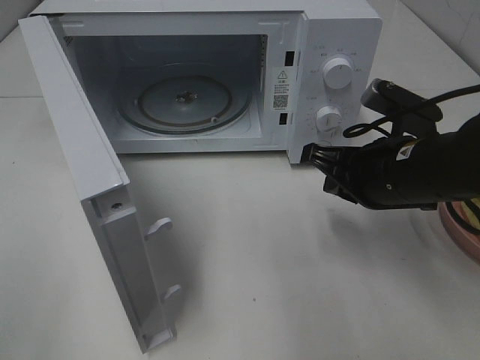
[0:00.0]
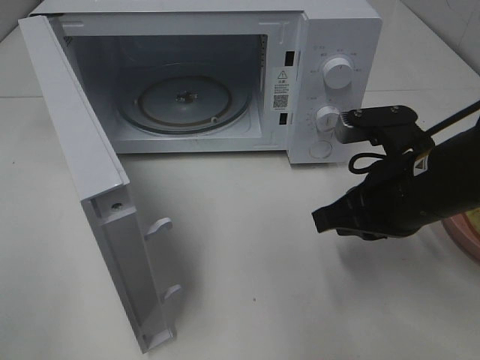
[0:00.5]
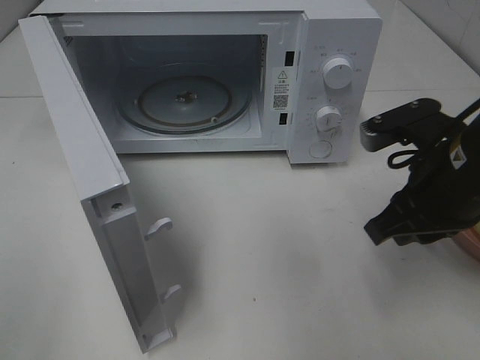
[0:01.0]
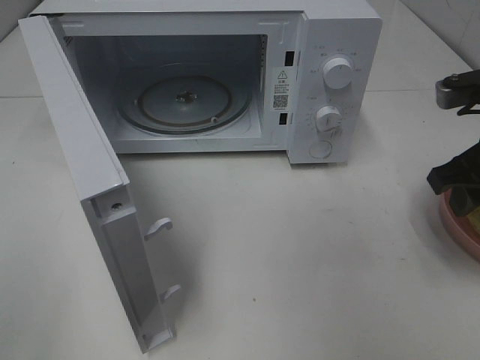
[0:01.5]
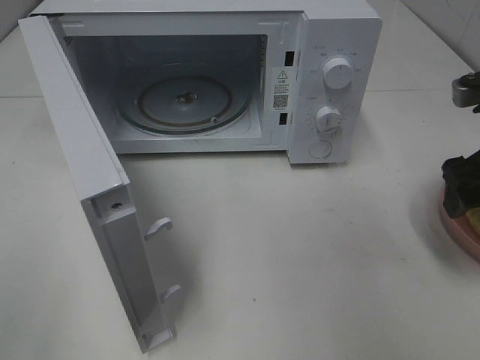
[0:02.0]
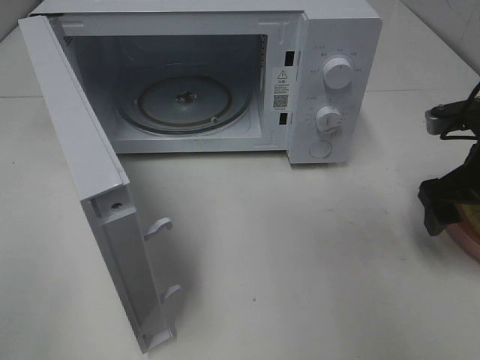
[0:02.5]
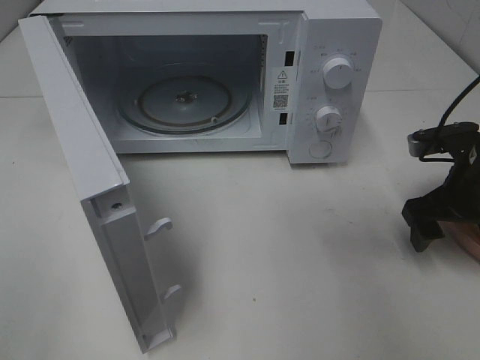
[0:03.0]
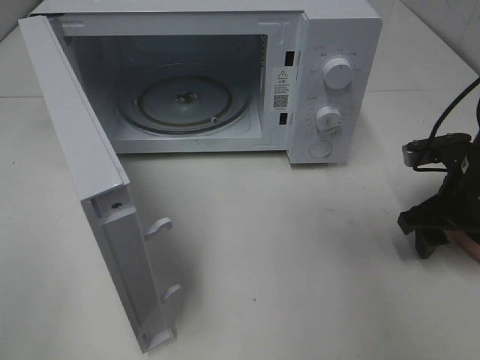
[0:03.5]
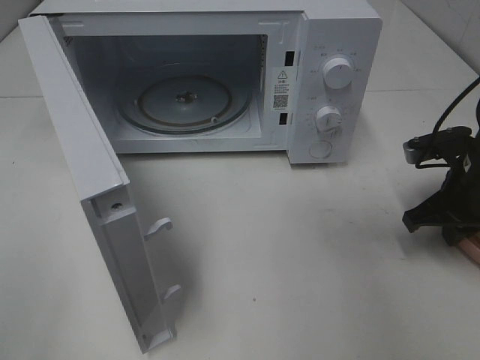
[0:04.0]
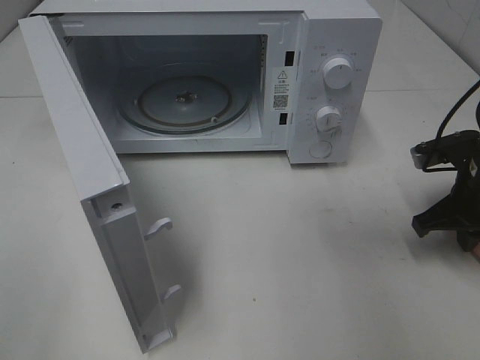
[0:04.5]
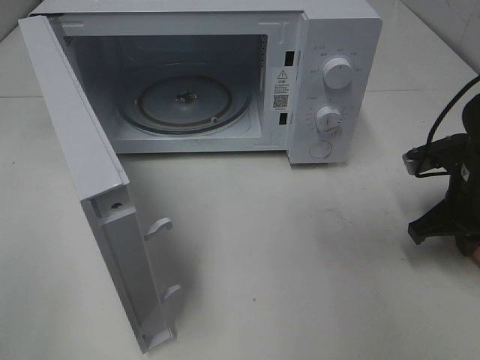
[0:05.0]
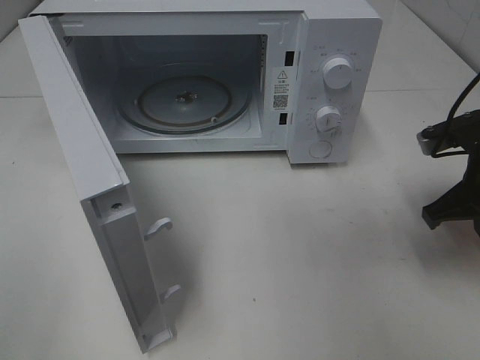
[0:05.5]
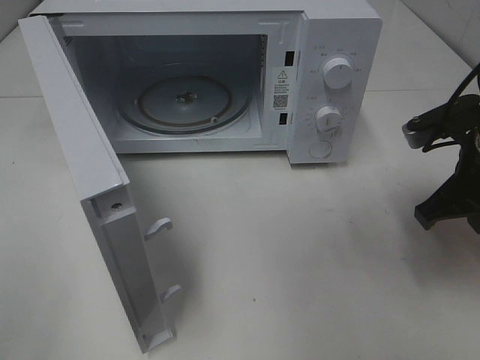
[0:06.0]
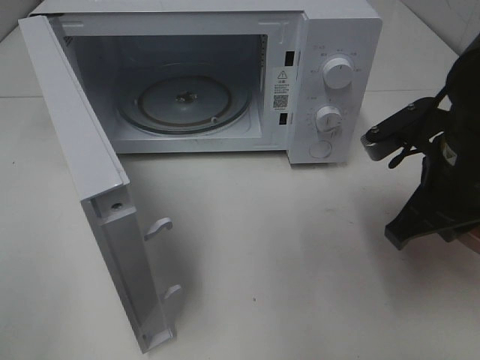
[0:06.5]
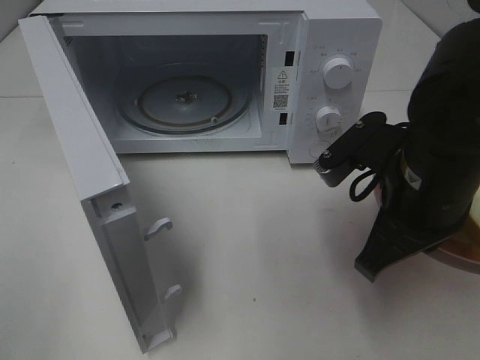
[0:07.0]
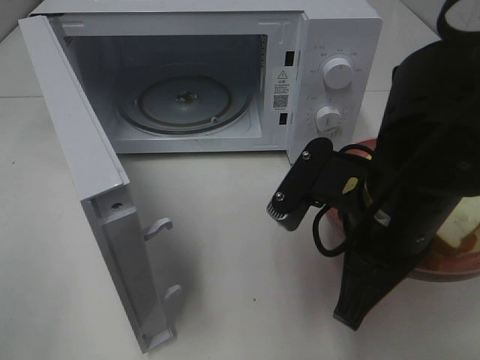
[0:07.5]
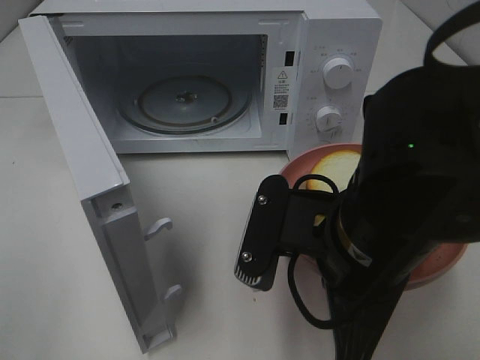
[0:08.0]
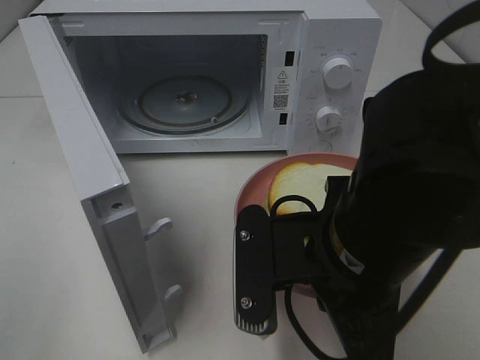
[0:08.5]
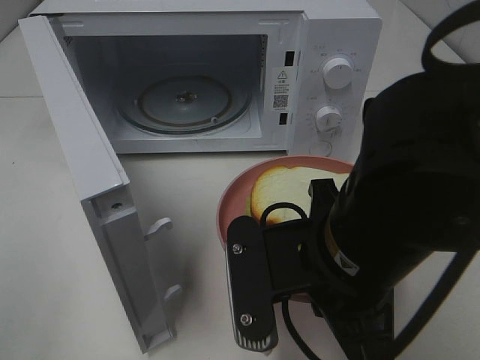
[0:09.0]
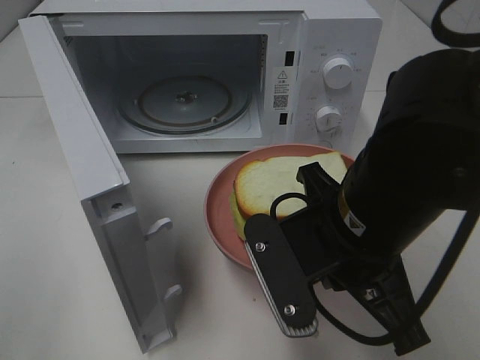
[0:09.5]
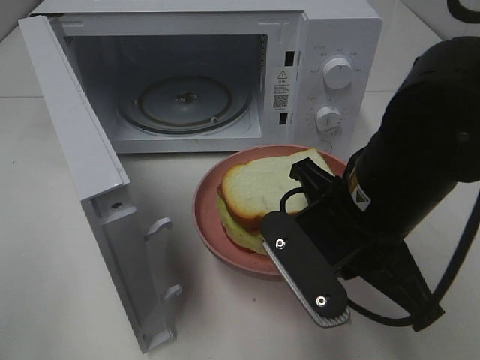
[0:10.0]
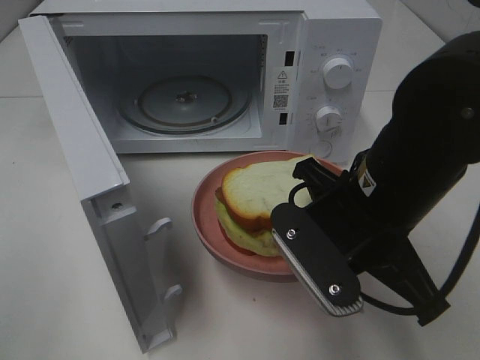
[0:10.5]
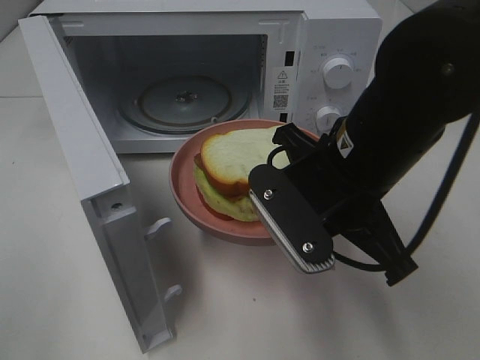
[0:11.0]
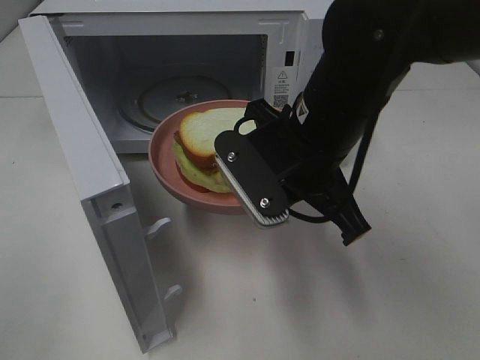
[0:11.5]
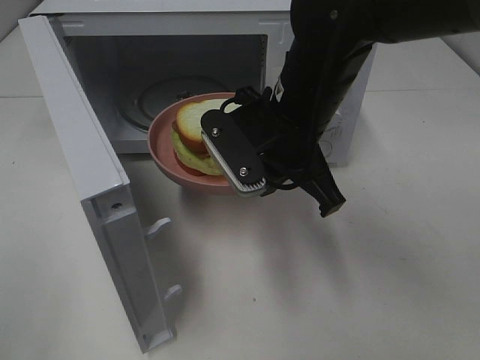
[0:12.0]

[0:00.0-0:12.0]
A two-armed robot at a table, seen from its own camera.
Task of the whole recording: Heat Sandwich.
Step, 0.0 to 4.0 s: Right hand: grab the plate with the sandwich.
0.0 to 2.0 s: The right gripper travels to the right and upward by some 10 cm, and opens.
2.0 to 4.0 s: The right gripper travels downward by about 10 cm, and closes its fingers.
4.0 to 6.0 s: The right gripper goes about 5 cm upward.
6.0 to 8.0 s: The right gripper heads to the left and backward, covering some 20 cm.
10.0 to 12.0 s: The right gripper shifts roughly 10 cm forward.

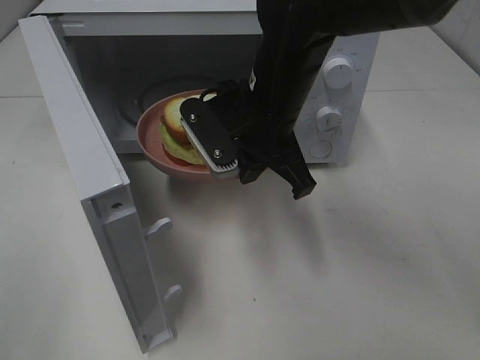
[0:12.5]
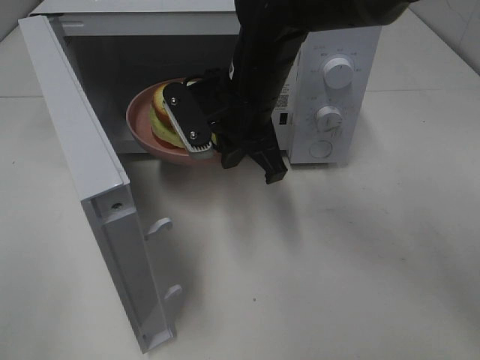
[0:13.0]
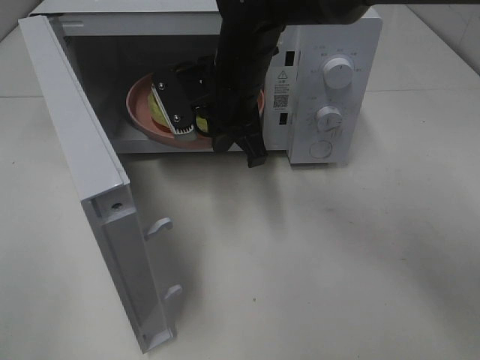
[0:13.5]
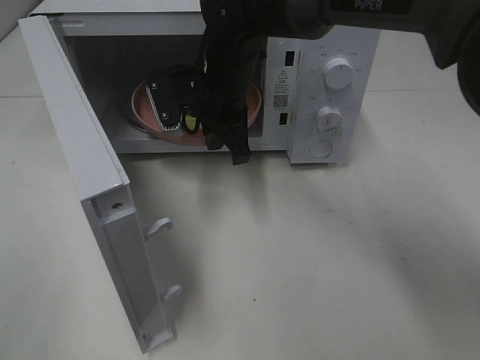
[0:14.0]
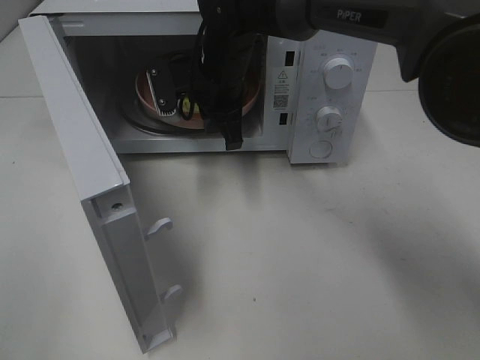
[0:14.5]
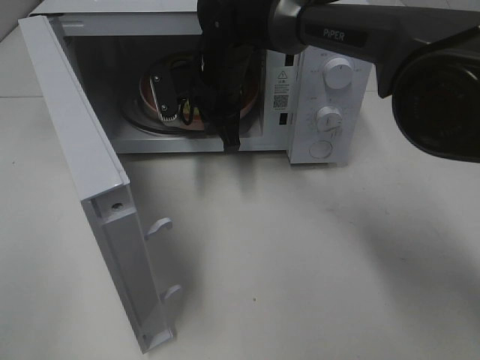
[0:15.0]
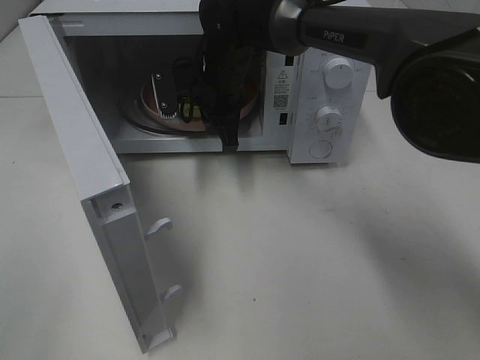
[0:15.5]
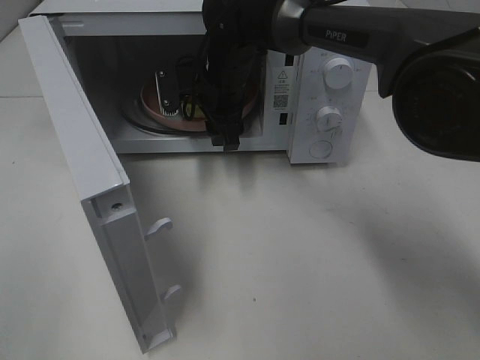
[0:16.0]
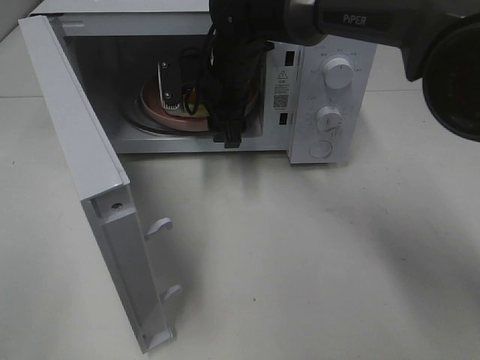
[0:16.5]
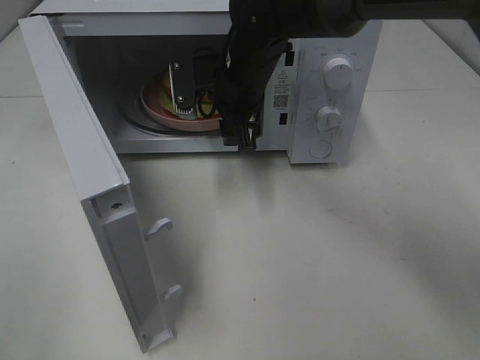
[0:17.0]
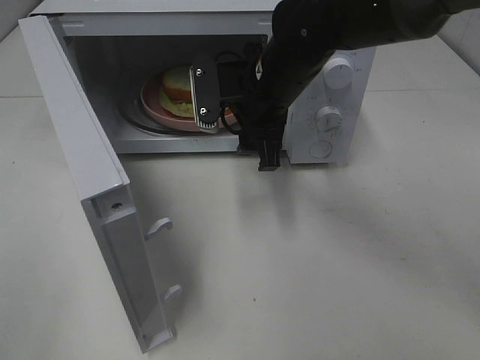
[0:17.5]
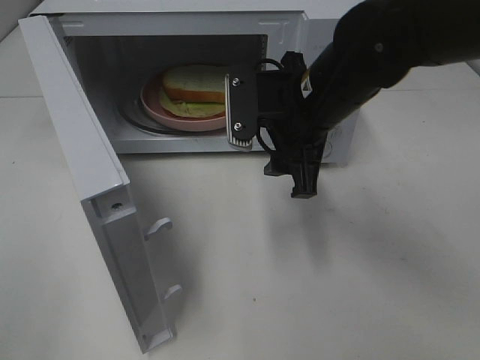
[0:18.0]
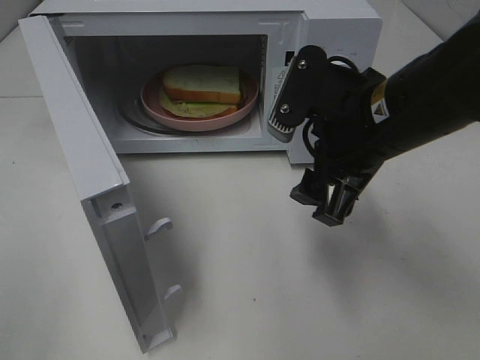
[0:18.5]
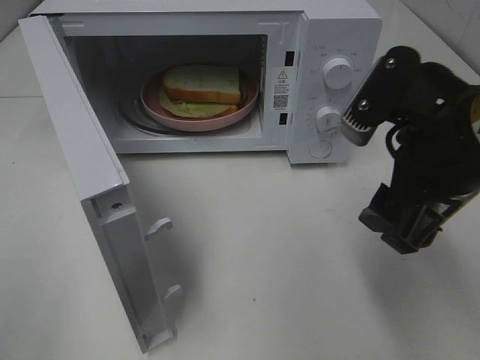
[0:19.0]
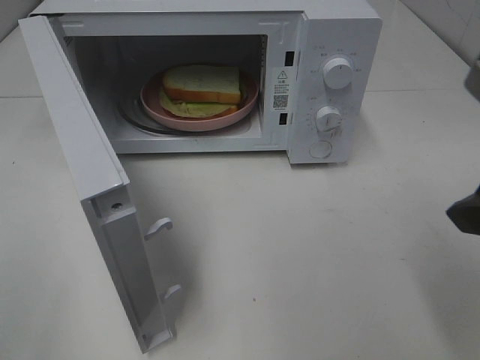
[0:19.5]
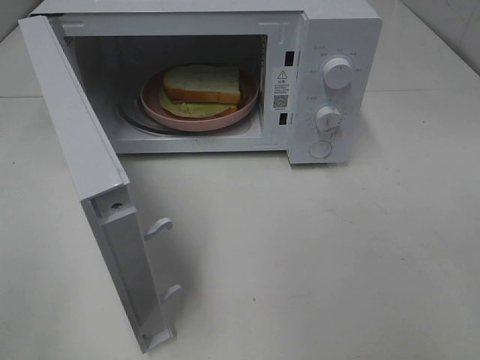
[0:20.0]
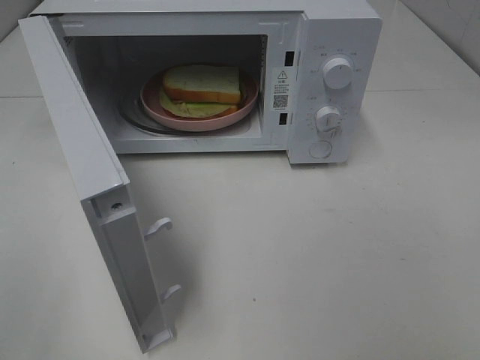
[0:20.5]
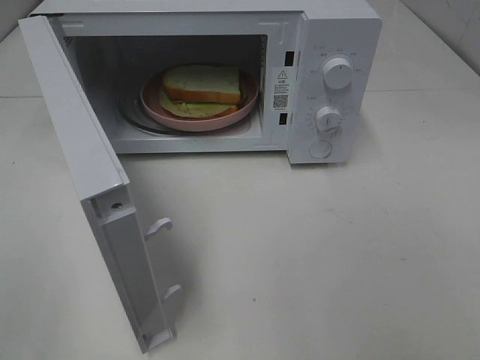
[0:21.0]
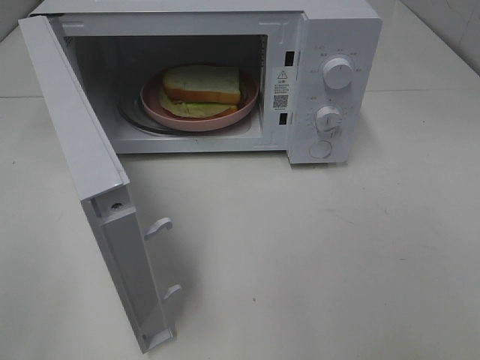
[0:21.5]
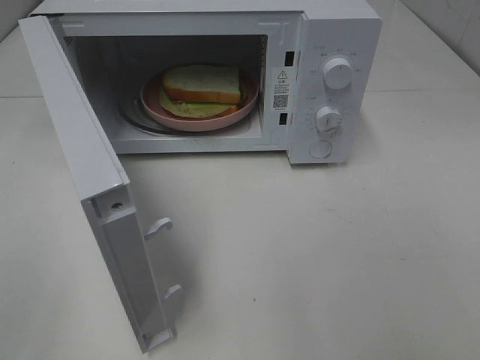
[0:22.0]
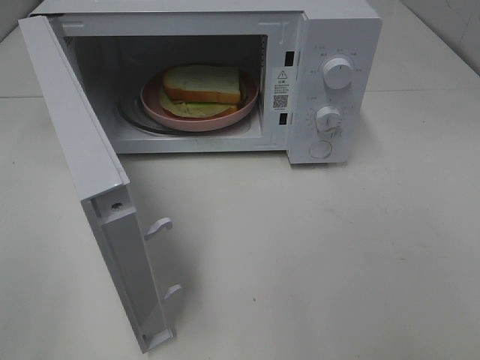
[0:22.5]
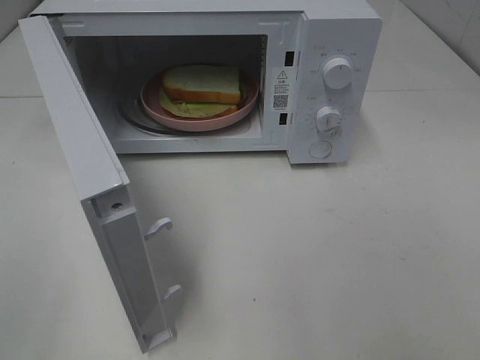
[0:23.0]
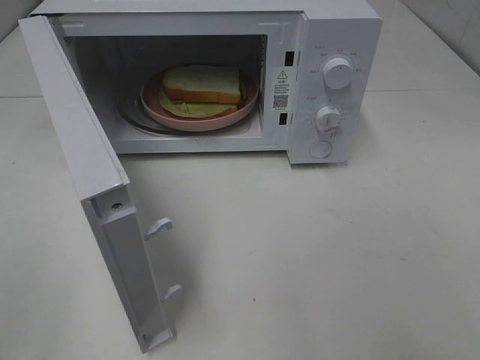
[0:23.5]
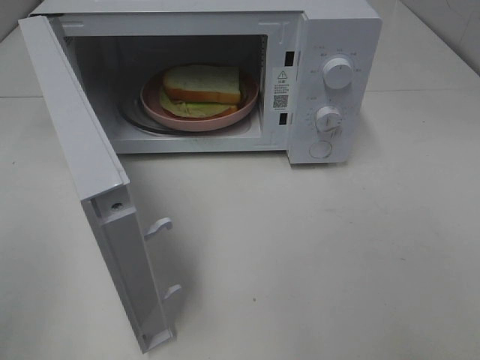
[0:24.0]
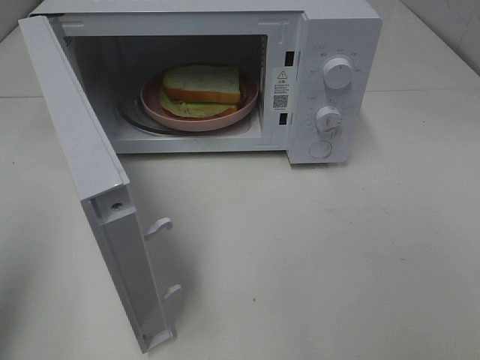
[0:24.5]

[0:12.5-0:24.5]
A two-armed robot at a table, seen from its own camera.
Task of the whole recording: Heat Sandwich.
Step, 12.5 to 16.5 s: Right hand: place the plate in the microwave.
12.5 to 14.5 s: The right gripper travels forward by approximately 10 cm.
14.5 to 16.5 s: The right gripper opens.
16.5 to 18.5 s: The right gripper moves backward and to the right, about 25 cm.
18.5 to 20.5 s: The right gripper is displaced backward, to the right and upward by approximately 30 cm.
22.5 to 24.5 s: The left gripper heads forward, covering some 10 cm, and closes.

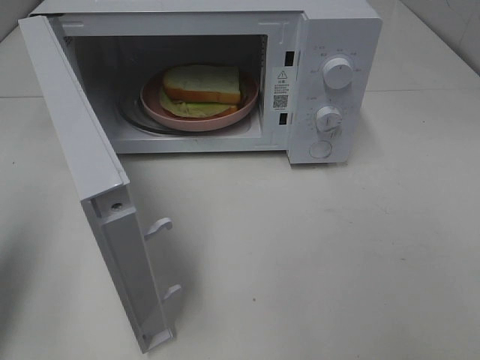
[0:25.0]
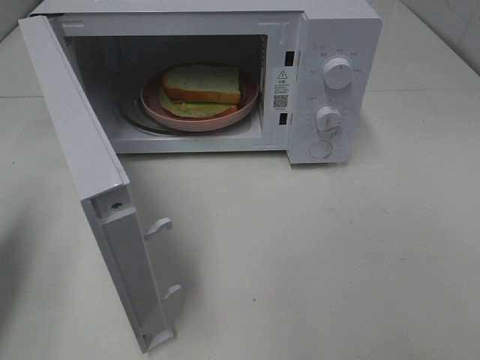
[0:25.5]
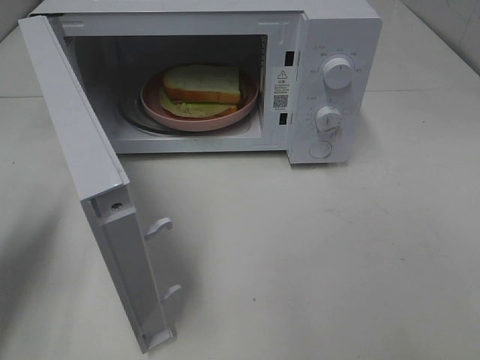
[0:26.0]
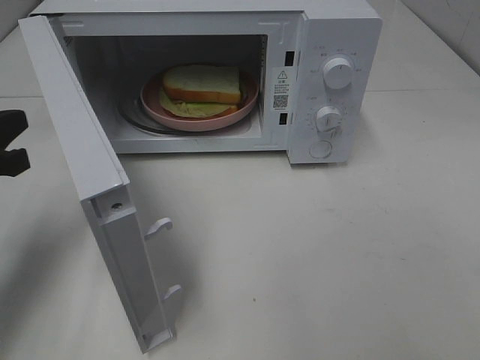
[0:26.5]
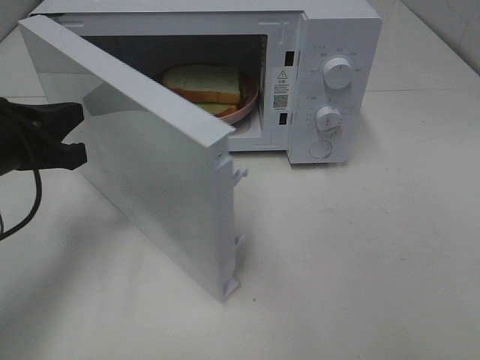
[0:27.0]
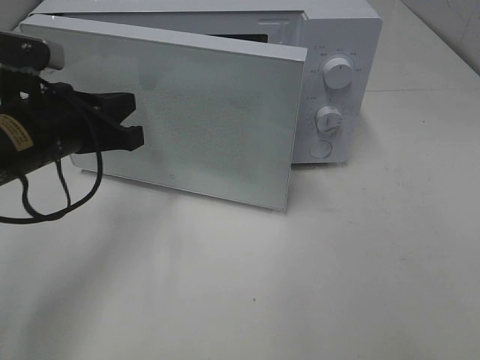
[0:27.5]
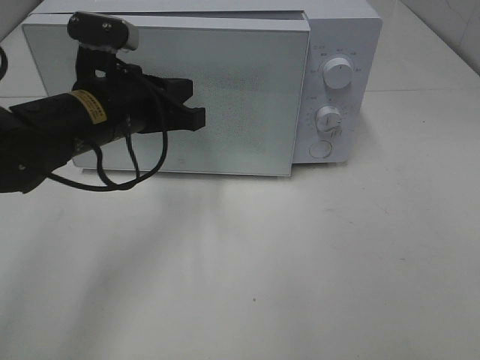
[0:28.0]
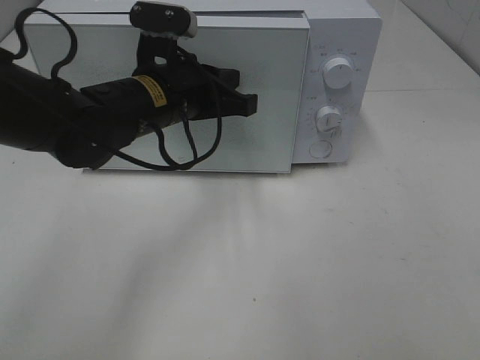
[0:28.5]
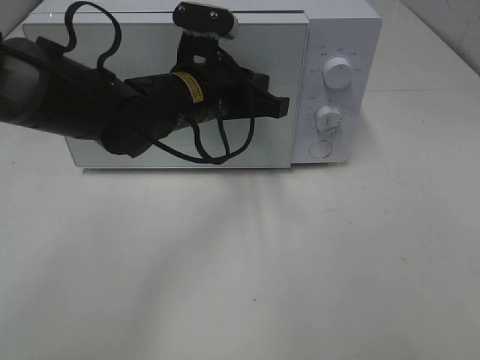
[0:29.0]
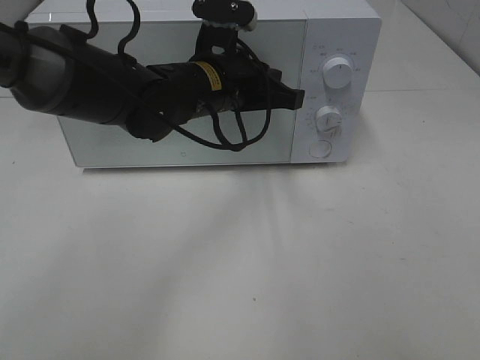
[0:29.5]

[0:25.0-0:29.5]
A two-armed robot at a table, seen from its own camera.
Task of the whole recording: Heat Sandwich.
25.0 to 27.0 s: The left gripper travels forward, downward and to the right by some 15 cm.
27.0 to 29.5 s: The left gripper is displaced to the right and forward by approximately 25 cm.
